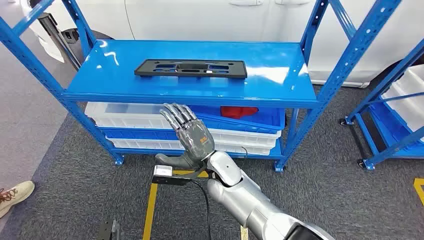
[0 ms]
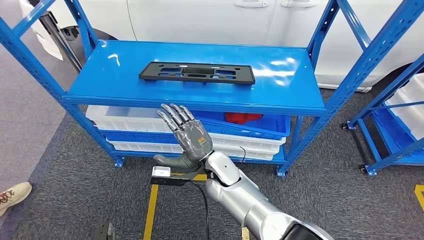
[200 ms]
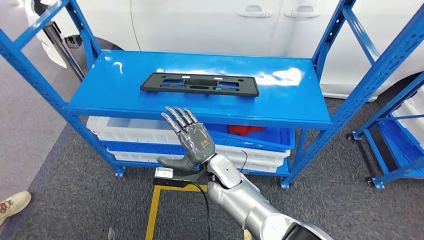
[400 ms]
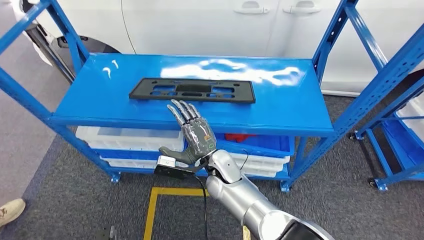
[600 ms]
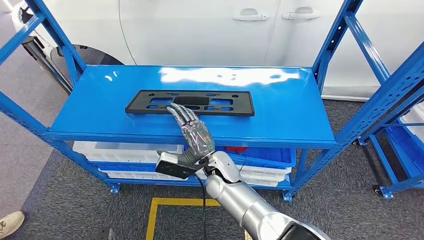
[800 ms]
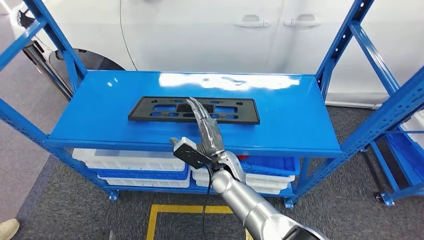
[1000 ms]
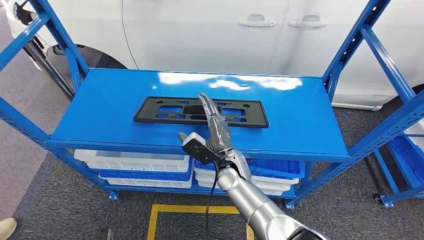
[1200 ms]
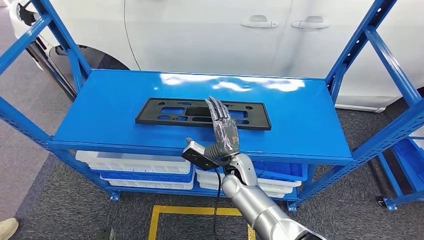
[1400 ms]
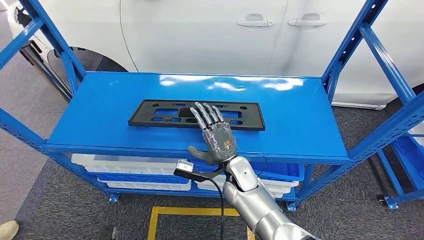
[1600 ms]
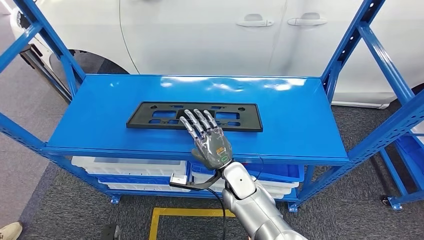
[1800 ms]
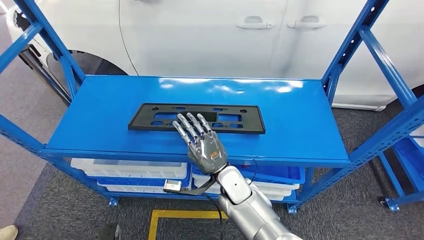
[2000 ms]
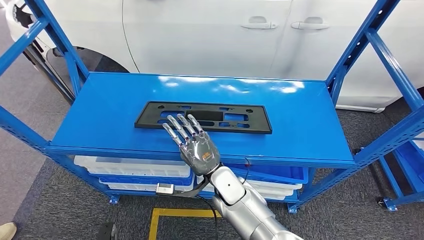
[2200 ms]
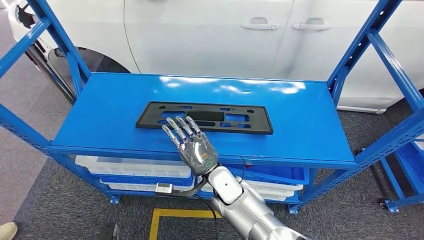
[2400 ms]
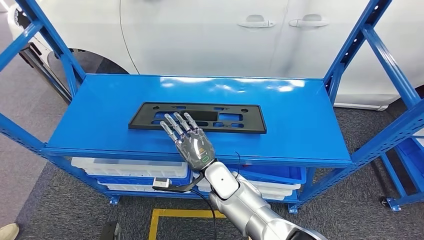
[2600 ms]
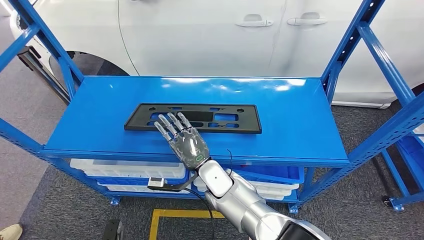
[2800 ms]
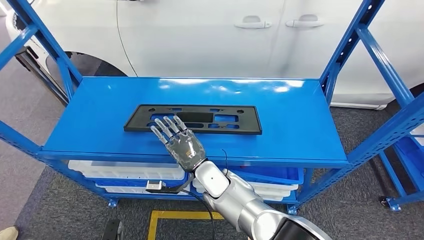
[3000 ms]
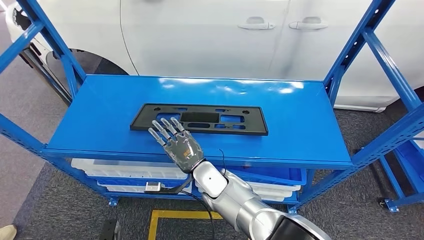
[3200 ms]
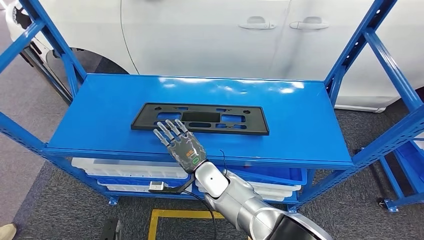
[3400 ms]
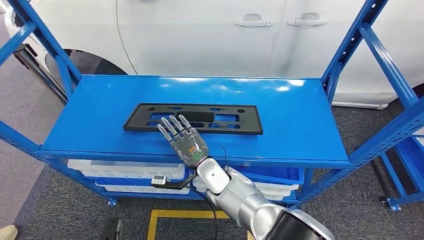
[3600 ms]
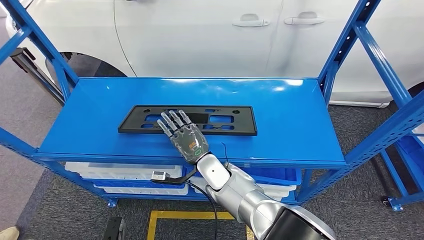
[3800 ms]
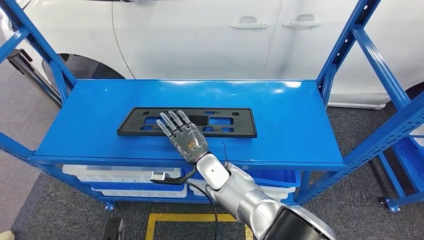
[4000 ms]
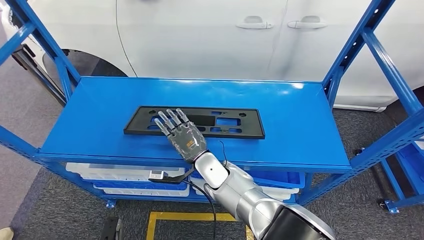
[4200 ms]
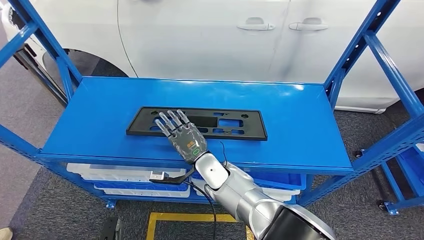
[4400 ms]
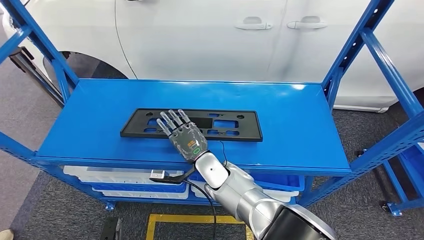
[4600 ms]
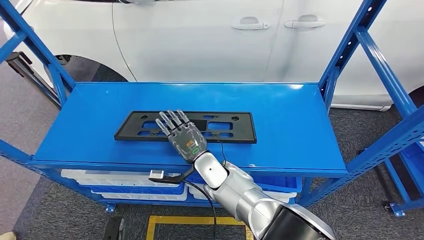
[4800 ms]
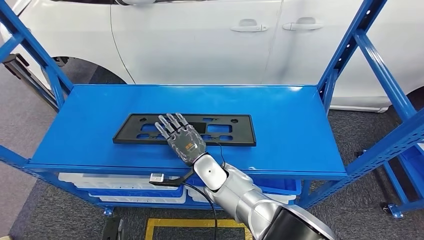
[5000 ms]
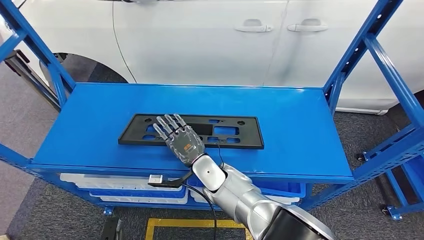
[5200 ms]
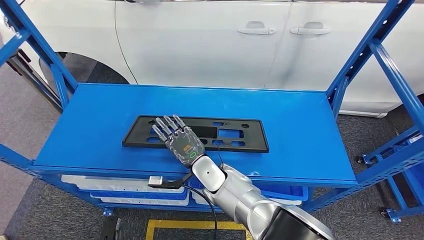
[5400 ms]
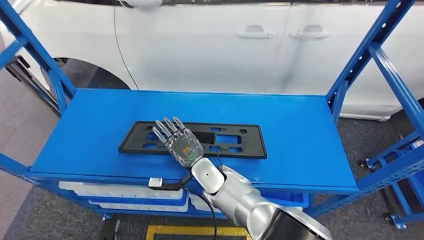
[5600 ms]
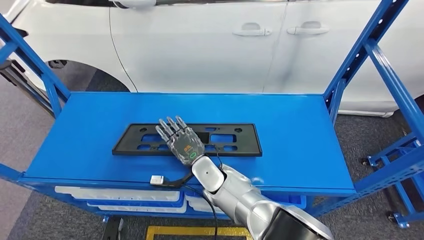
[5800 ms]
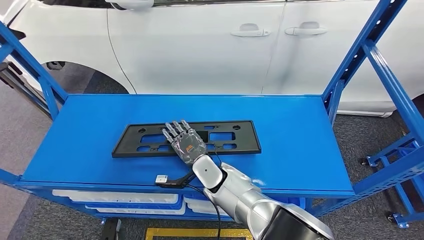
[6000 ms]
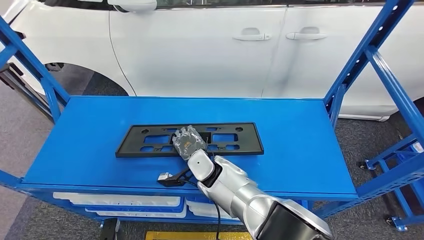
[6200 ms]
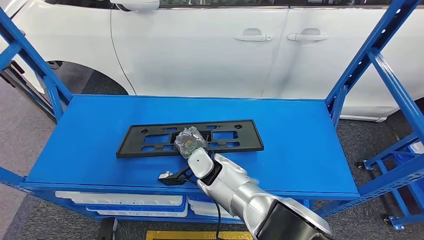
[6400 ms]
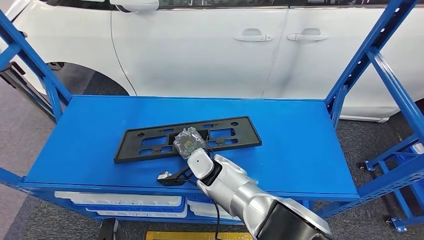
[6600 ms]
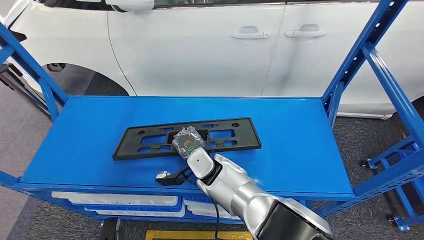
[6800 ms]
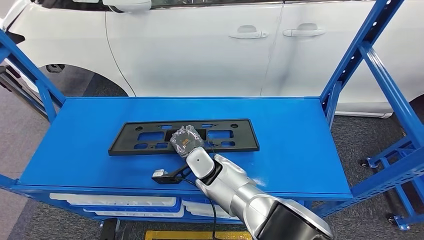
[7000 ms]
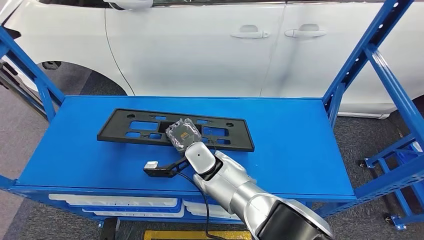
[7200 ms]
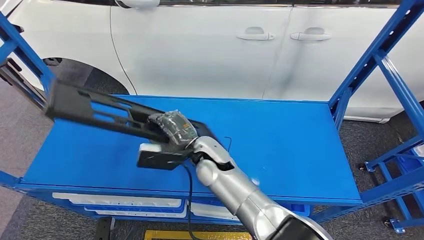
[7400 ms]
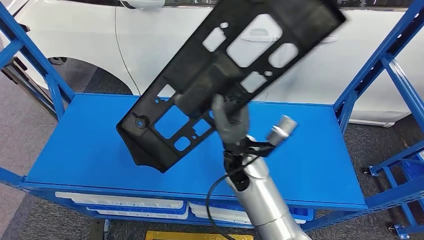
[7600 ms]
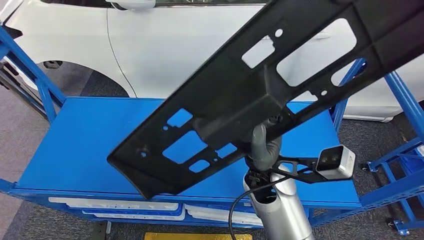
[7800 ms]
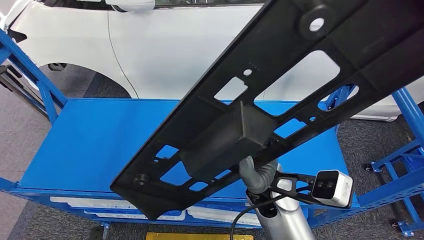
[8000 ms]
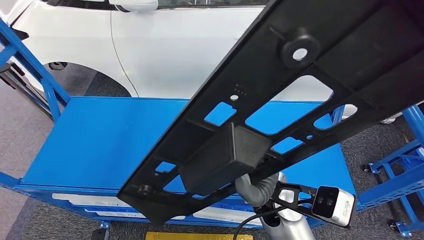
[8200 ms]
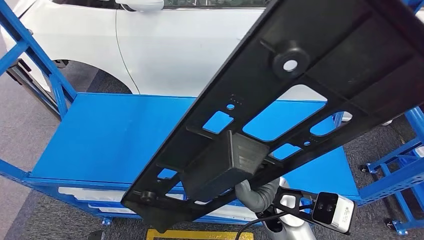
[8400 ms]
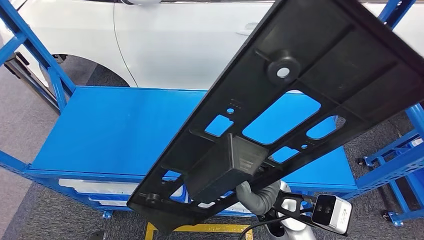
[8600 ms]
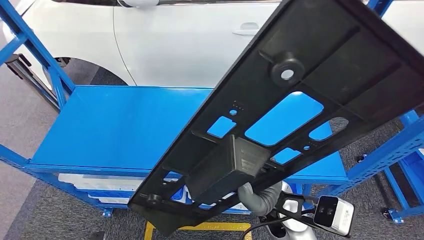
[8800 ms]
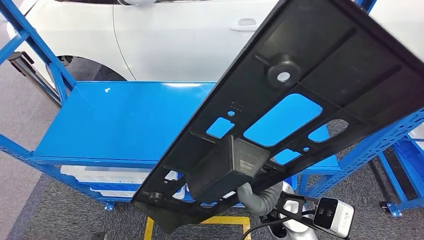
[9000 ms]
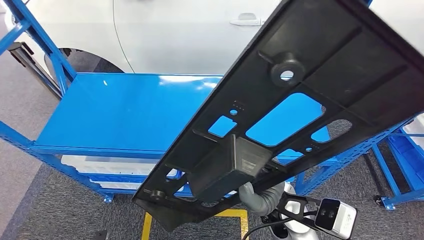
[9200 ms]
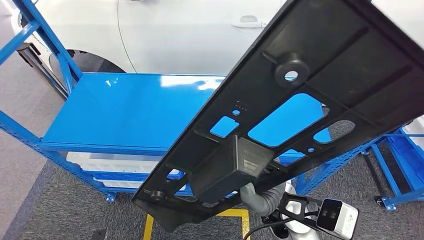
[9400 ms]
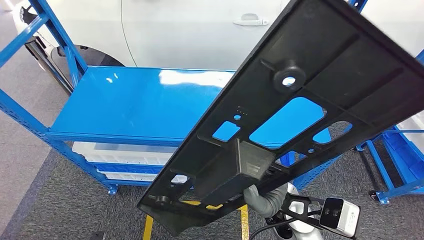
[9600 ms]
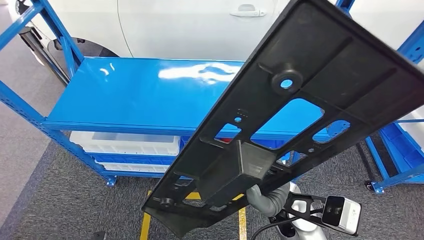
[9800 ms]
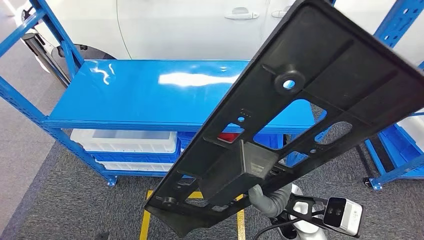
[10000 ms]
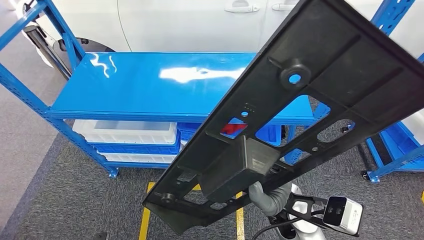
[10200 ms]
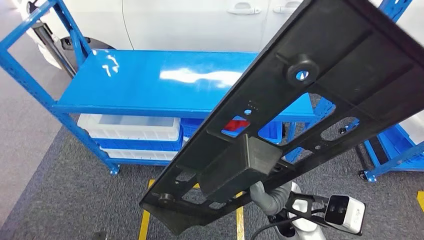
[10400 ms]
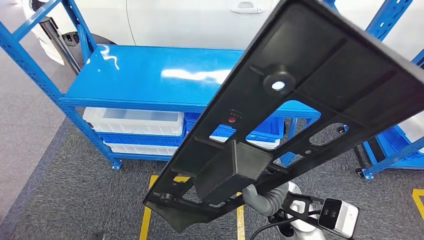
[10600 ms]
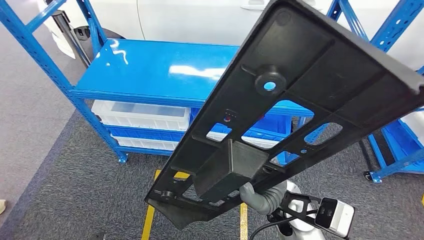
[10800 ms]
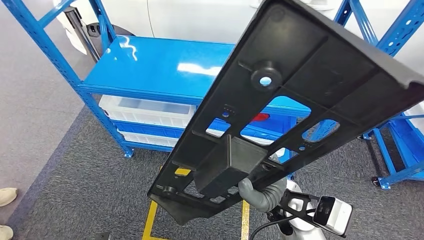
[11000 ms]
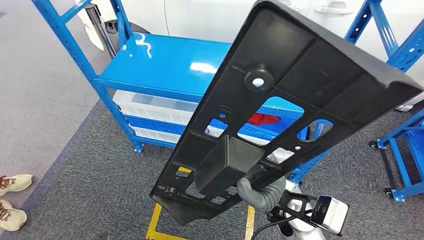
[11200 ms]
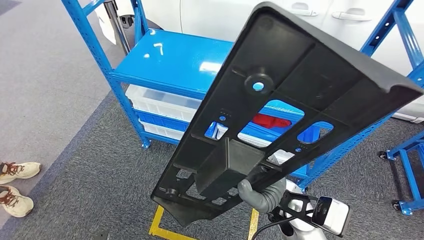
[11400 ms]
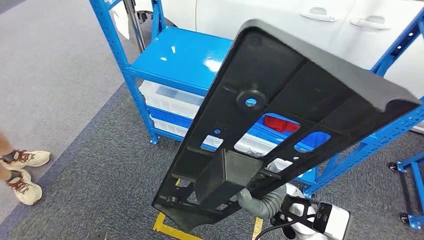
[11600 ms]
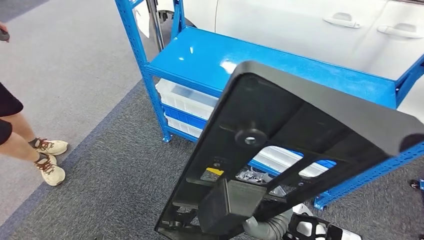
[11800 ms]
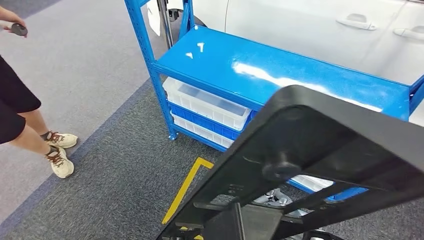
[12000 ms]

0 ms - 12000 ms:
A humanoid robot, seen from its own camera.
Step, 0 ms - 7600 ms: Pick up the large material from the shelf.

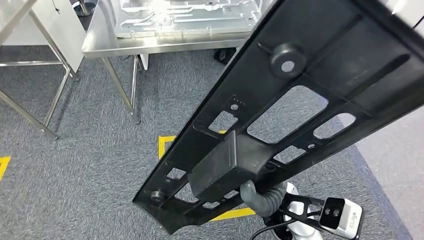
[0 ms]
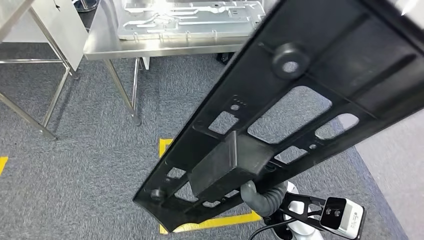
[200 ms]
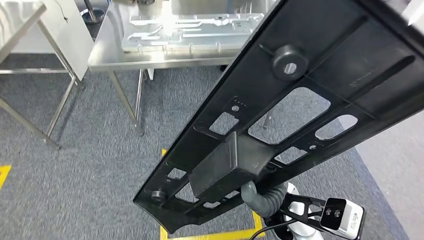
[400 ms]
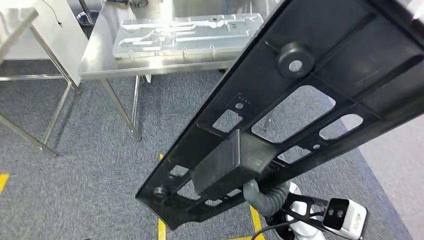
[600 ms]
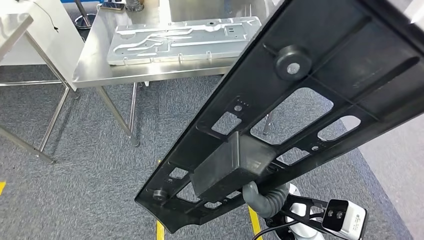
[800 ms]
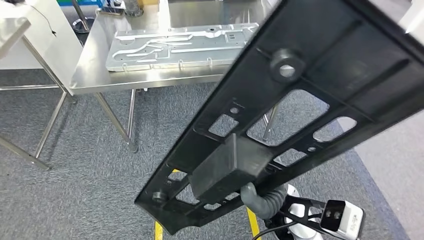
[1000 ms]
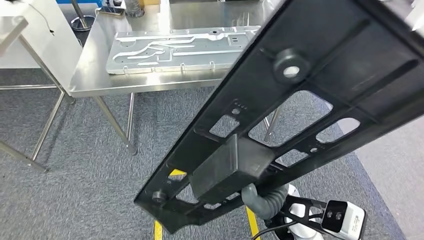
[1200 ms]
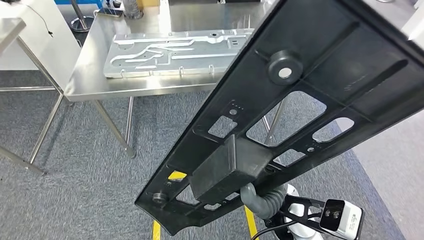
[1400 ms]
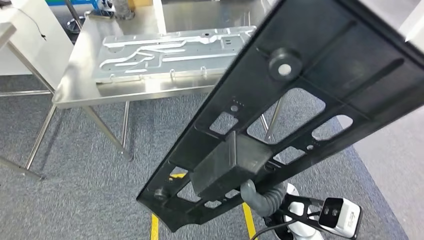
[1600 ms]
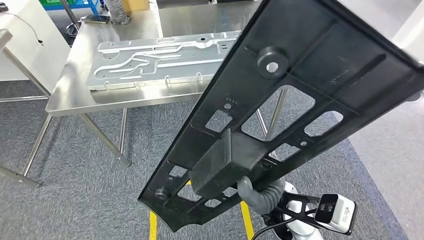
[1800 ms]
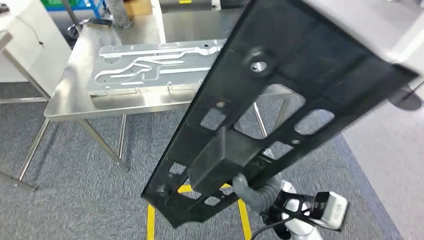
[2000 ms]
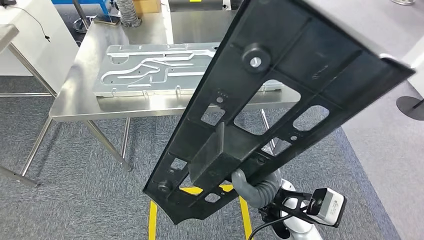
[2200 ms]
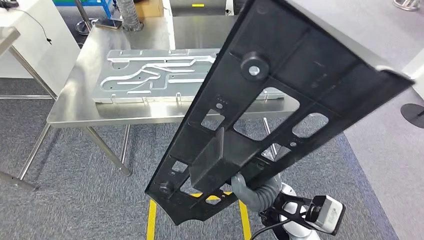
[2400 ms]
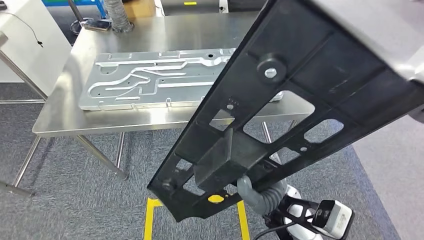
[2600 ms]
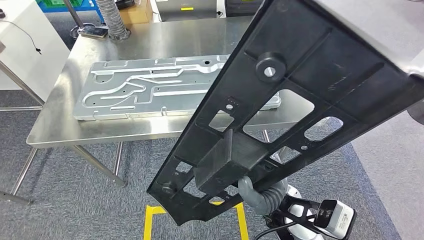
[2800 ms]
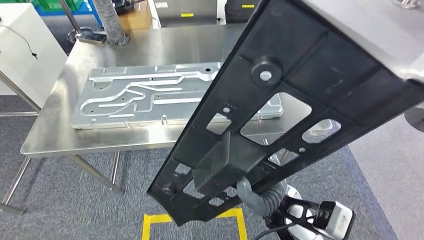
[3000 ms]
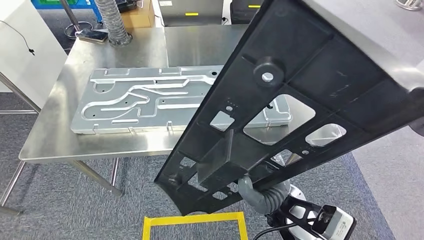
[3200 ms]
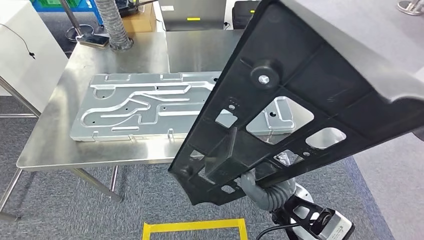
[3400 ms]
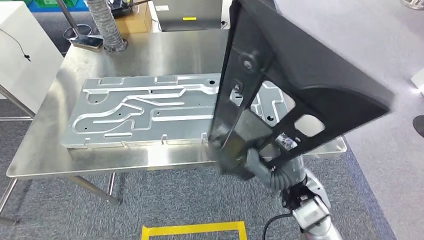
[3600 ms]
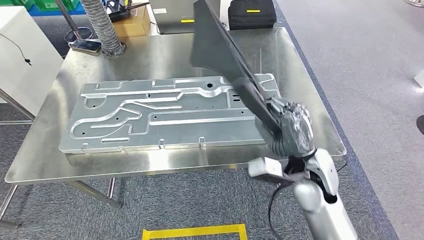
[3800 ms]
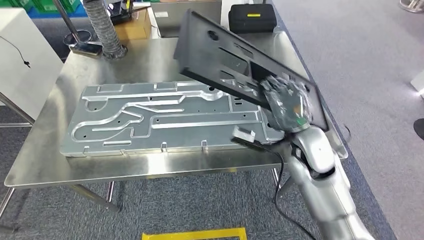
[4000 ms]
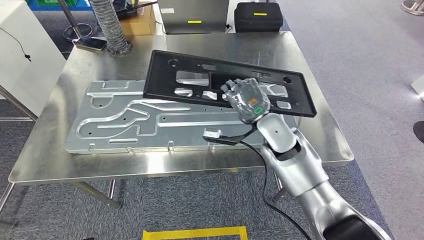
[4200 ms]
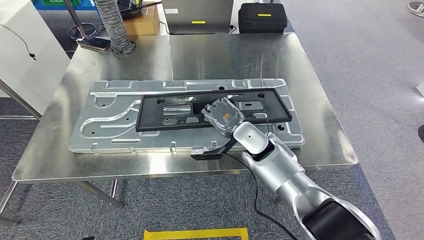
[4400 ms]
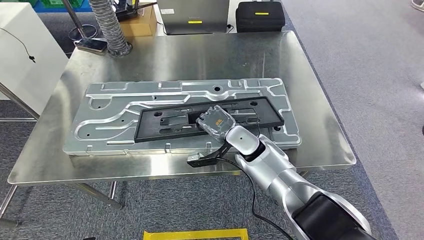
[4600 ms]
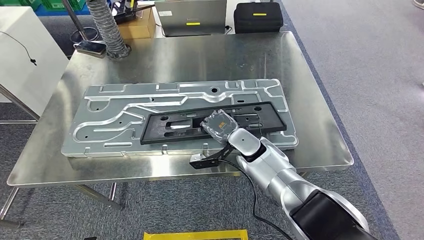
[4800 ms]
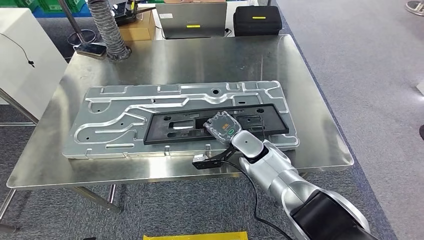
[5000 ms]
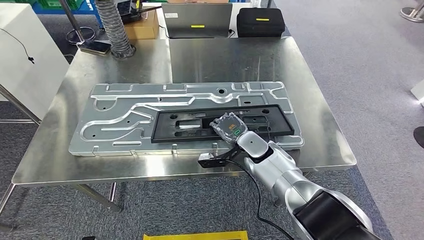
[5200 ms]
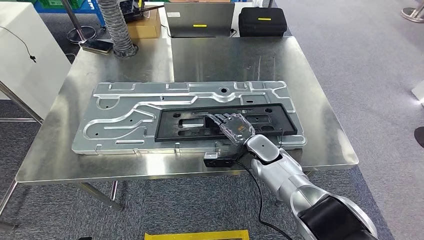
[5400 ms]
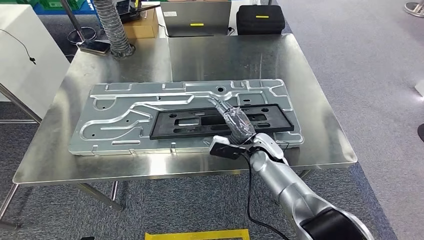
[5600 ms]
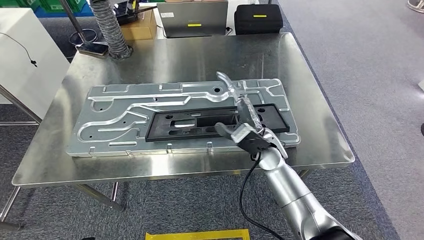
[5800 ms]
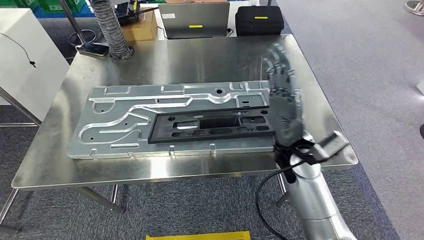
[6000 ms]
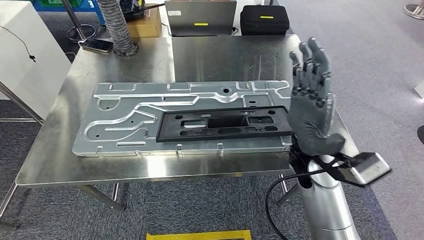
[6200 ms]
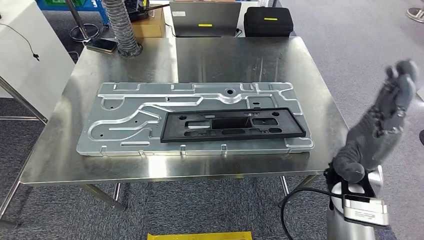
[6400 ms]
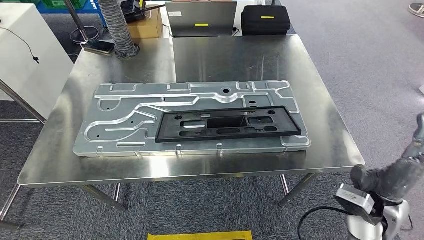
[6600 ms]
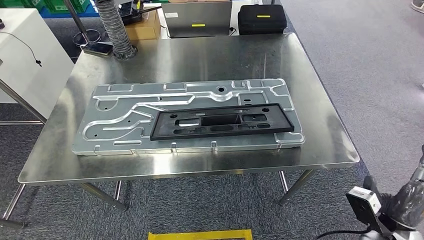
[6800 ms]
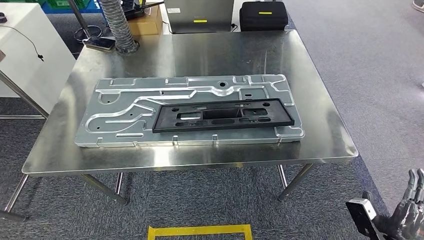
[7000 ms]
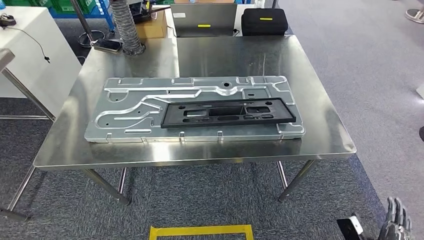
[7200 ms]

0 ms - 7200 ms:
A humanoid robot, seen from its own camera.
Step, 0 ms - 4200 ms: Move the large material to the workbench.
Step, 4400 ms - 7000 ms: Insert the large material into the corresponding slot on the workbench.
